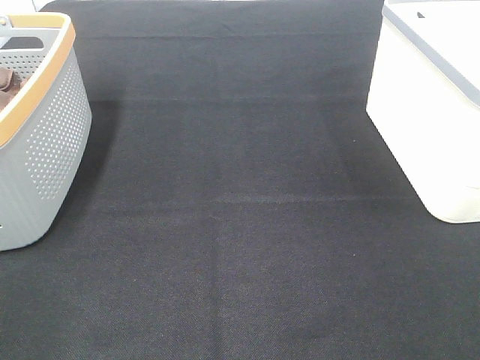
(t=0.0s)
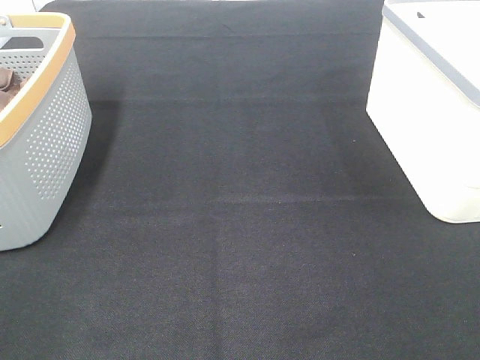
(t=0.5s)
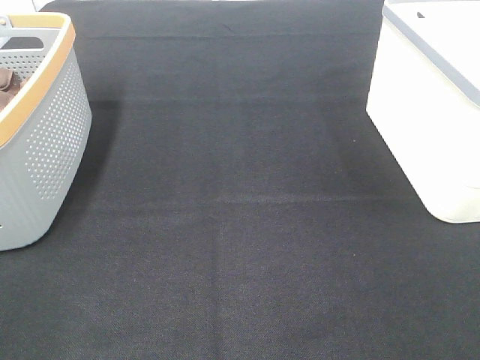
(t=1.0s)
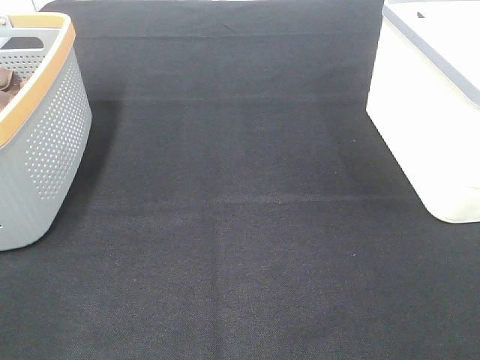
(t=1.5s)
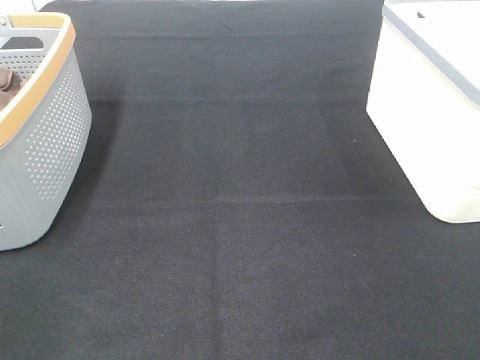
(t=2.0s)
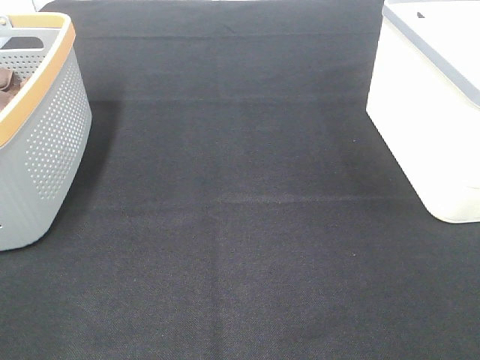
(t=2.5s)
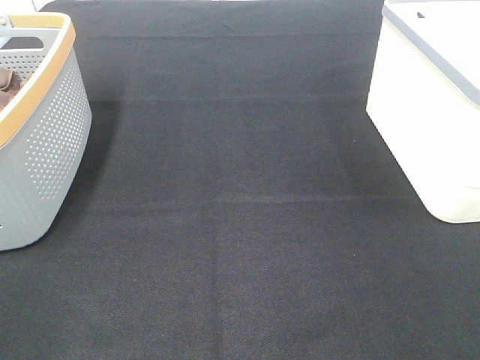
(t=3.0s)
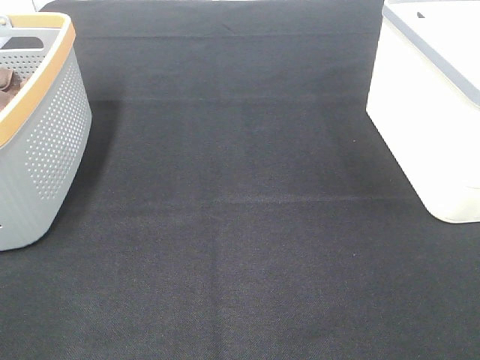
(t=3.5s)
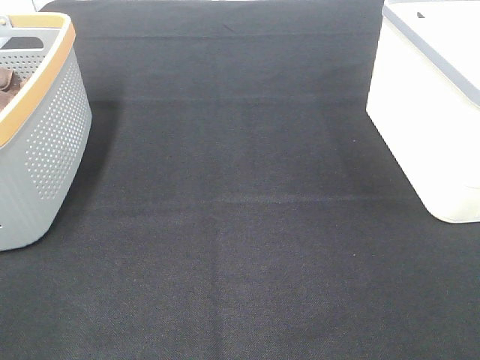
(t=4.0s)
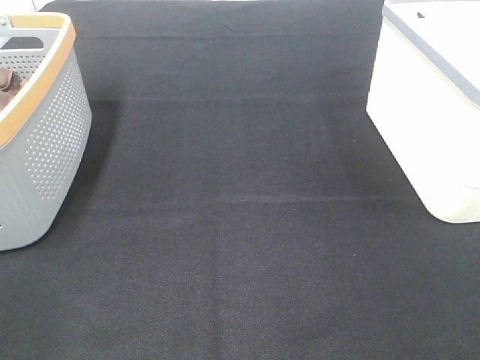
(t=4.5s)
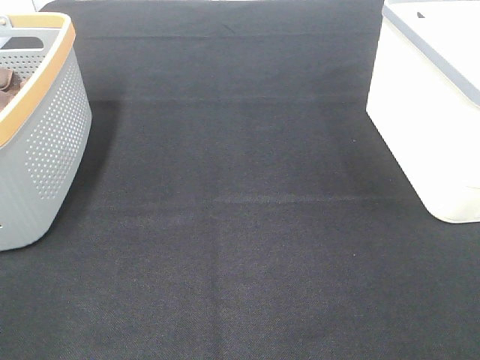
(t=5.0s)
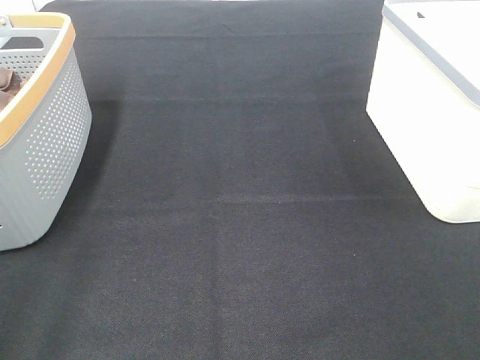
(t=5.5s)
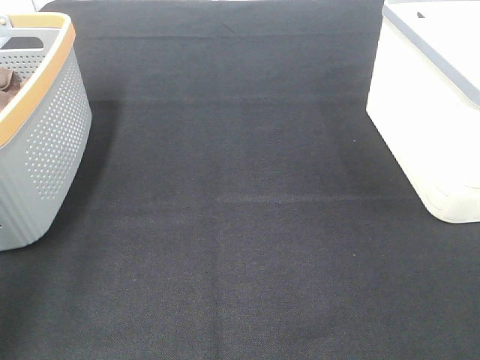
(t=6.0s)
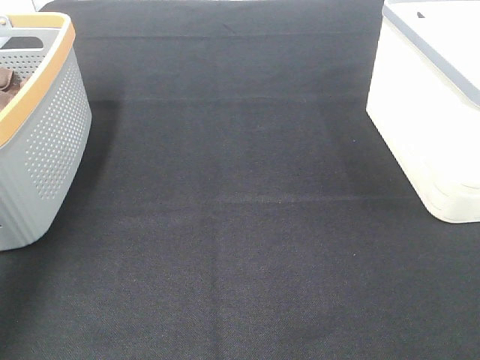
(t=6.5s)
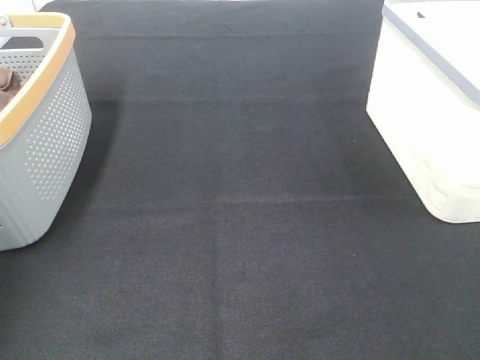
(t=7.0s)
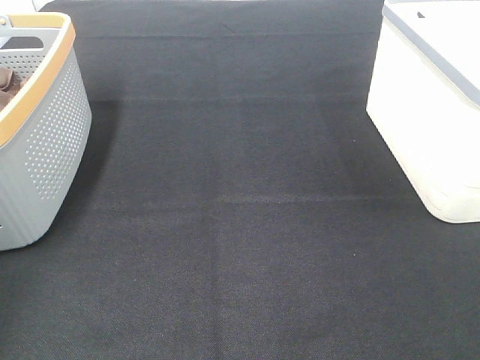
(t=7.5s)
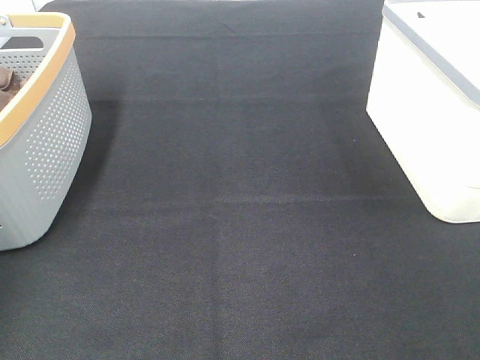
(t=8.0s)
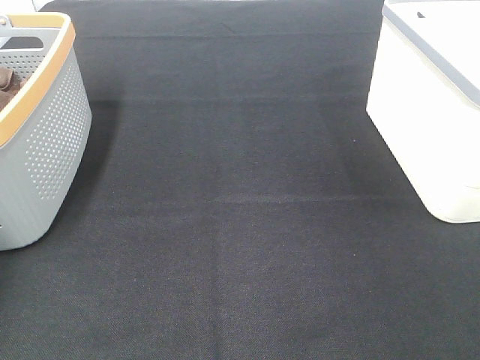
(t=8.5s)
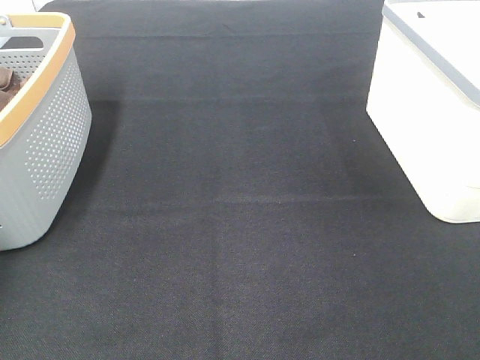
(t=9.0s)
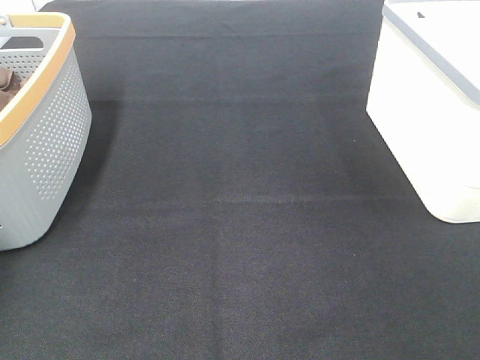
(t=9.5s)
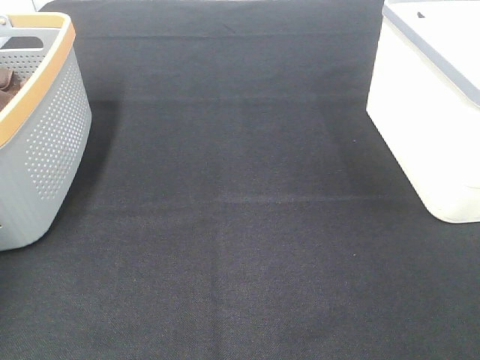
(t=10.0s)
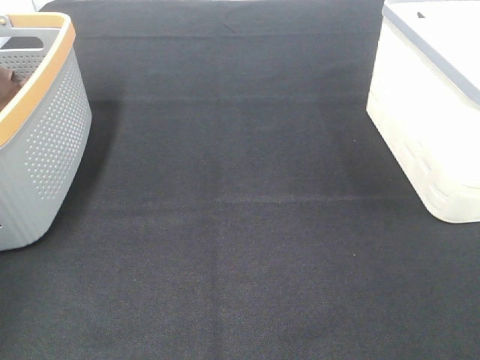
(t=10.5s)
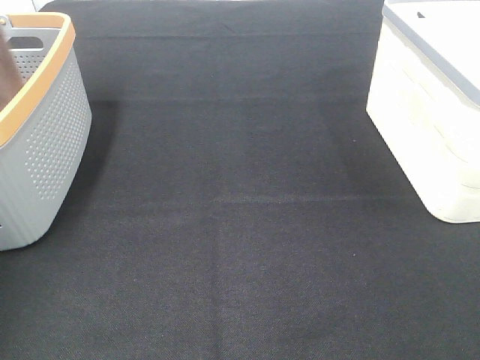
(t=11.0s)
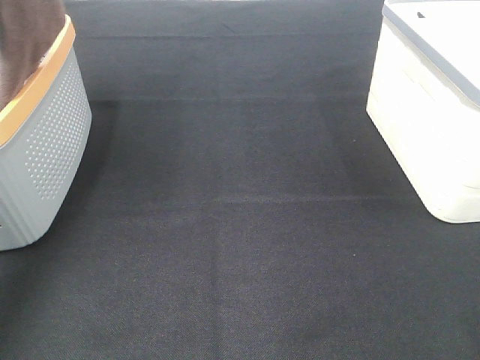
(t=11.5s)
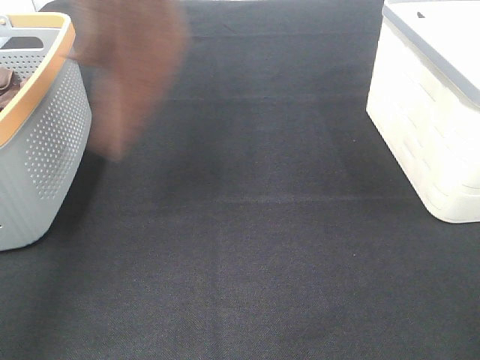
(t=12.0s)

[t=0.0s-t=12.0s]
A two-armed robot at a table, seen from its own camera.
Task of the whole recording: Remove the towel and place it.
t=0.0s to t=4.0s: Neither gripper changes place.
t=4.0s to t=6.0s: The left gripper is displaced forward and upward by approximately 20 cm.
t=6.0s to t=8.0s: The left gripper heads forward and to the left, covering some 30 cm.
t=10.0s to t=12.0s: The left gripper moves to the right, upward and backward, roughly 35 cm. Meanwhile the right gripper moves upward, forward and to the left, about 10 cm.

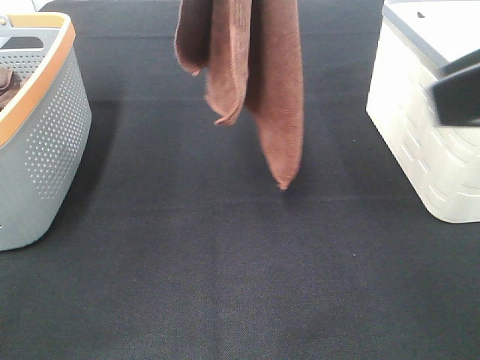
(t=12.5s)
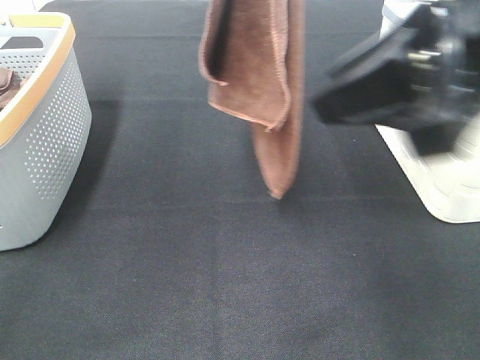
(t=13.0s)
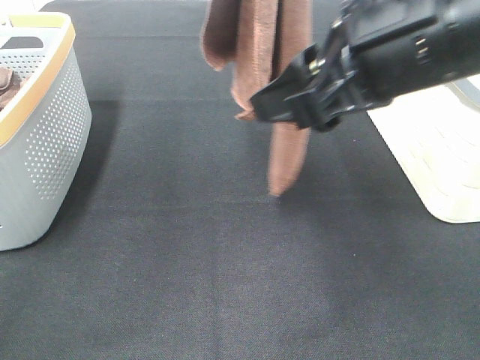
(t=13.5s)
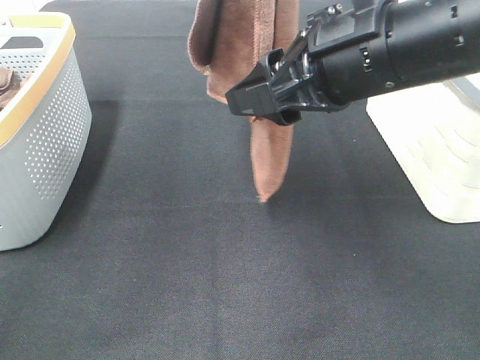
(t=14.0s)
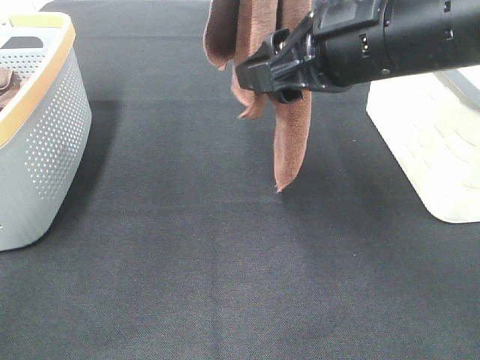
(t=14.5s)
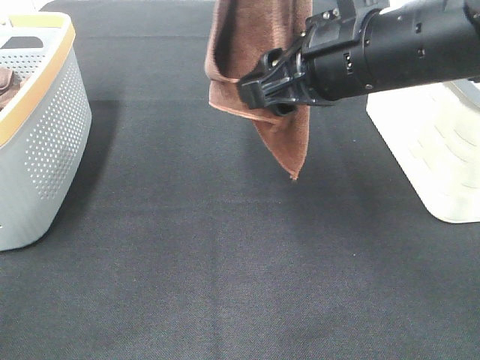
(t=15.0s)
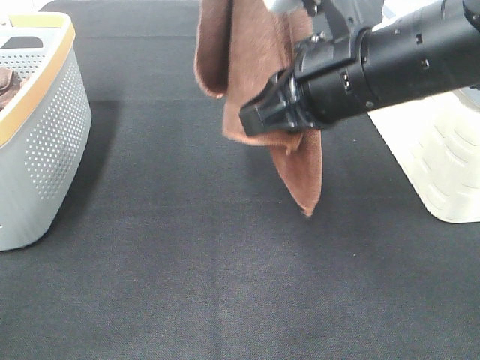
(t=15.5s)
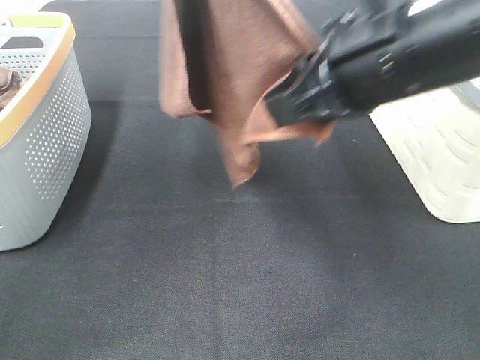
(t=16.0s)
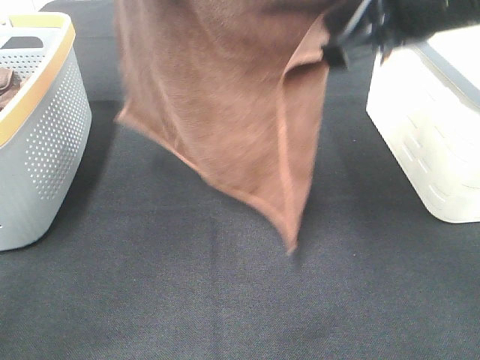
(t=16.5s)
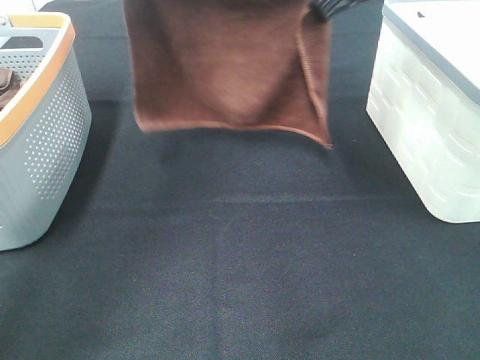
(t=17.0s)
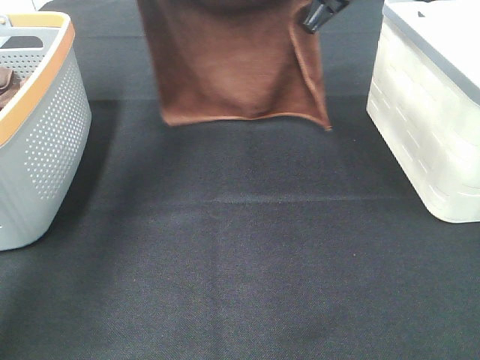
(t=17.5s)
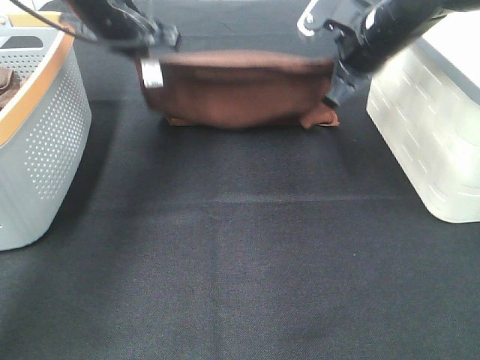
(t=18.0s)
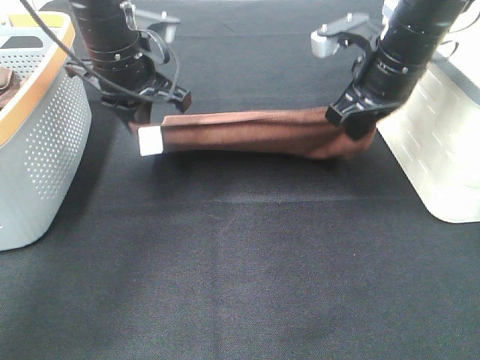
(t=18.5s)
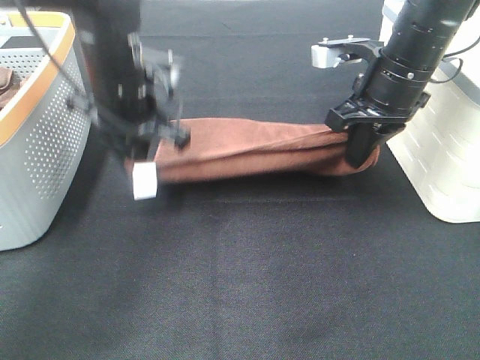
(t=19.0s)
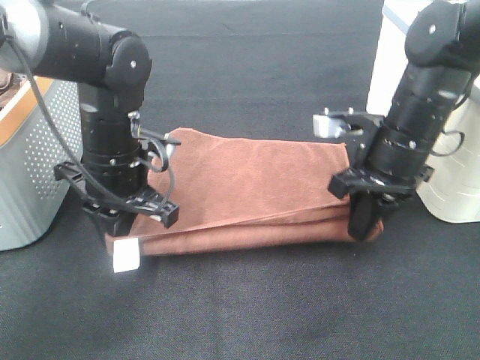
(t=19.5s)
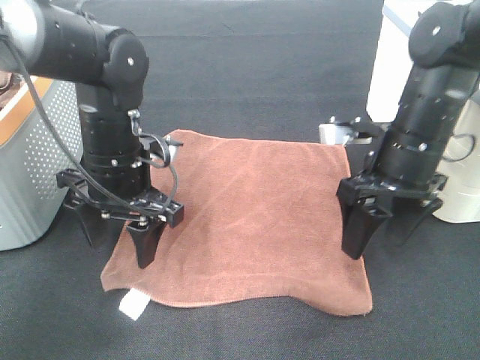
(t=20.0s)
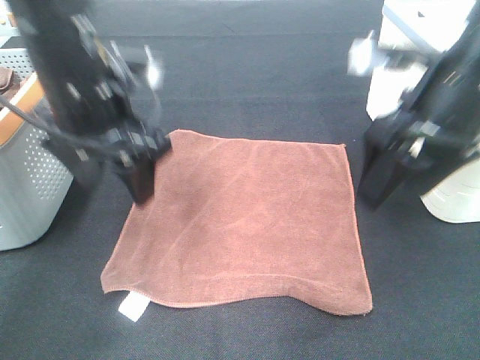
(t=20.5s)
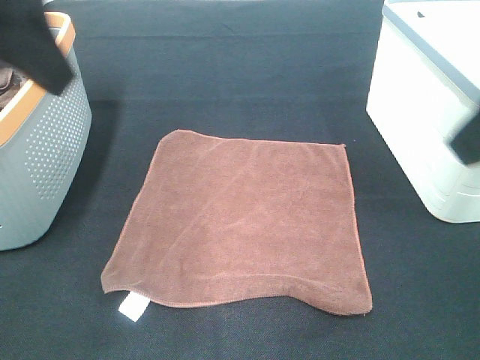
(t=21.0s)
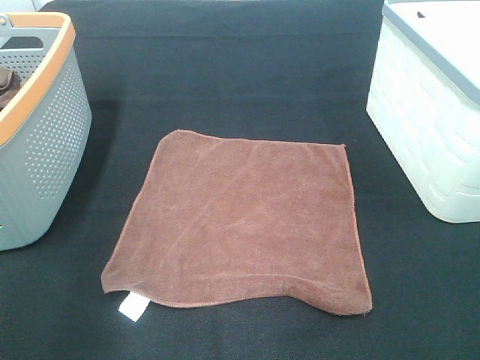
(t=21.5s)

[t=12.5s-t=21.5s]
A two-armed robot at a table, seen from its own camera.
Task of the whole recording: Remove the towel and place it.
Step, t=14.0s to t=15.5s: Left hand: spread the brown towel flat on the table.
Step, t=14.0s to t=15.5s: Right hand: spread the brown towel flat on the table.
t=12.5s to t=14.5s: The right gripper shifts roughly 15 cm forward, to the left and downward.
t=14.5s to t=17.0s: The right gripper travels forward by approximately 10 cm, and closes up; the left gripper heads forward, downward and to the left, covering about 15 cm.
t=17.0s to t=19.5s: The left gripper shifts roughly 25 cm downward and backward, while the right gripper moves downward, about 15 cm.
t=19.5s to t=21.5s: The right gripper goes approximately 30 cm backward and upward, and opens, while the left gripper heads backward, upward and to the left, covering some 30 cm, and opens its fingers.

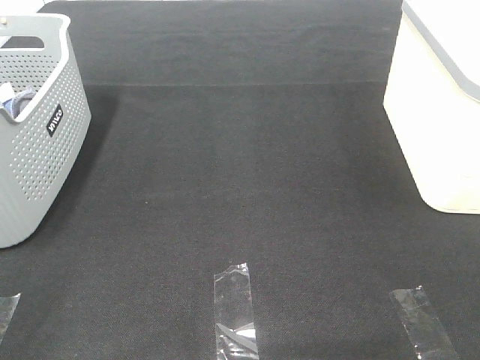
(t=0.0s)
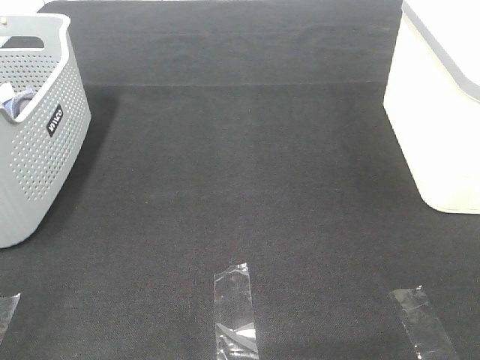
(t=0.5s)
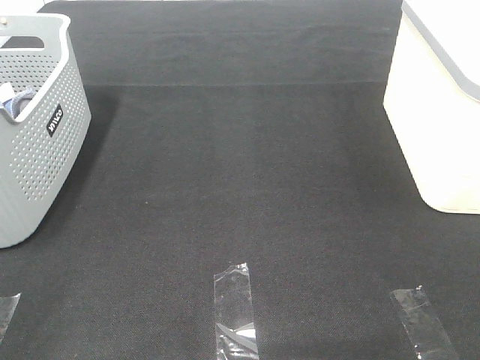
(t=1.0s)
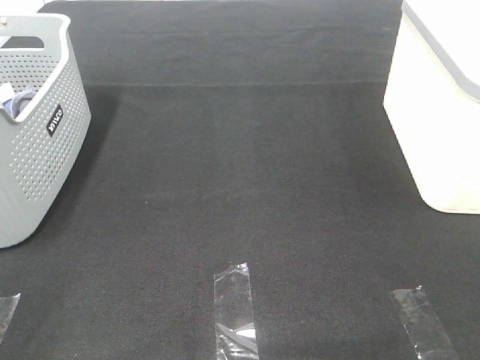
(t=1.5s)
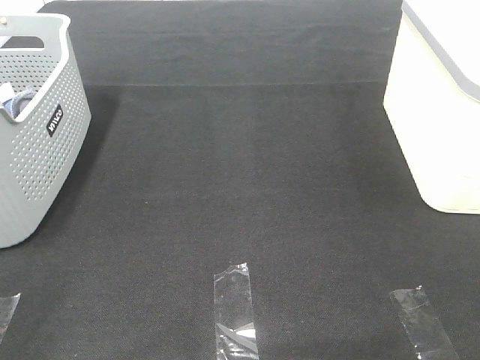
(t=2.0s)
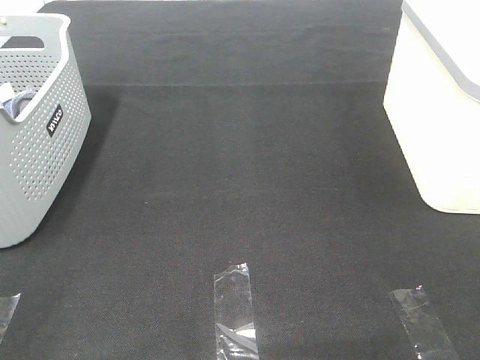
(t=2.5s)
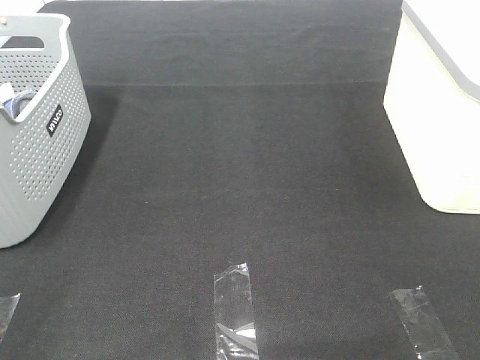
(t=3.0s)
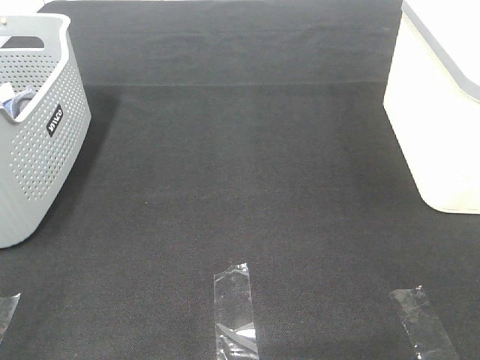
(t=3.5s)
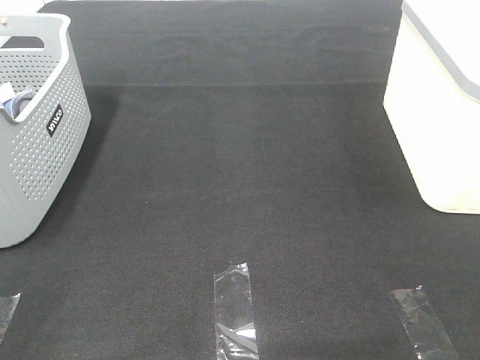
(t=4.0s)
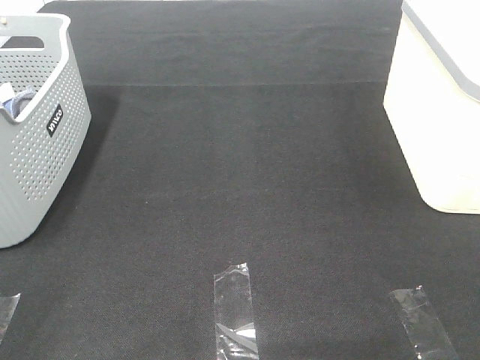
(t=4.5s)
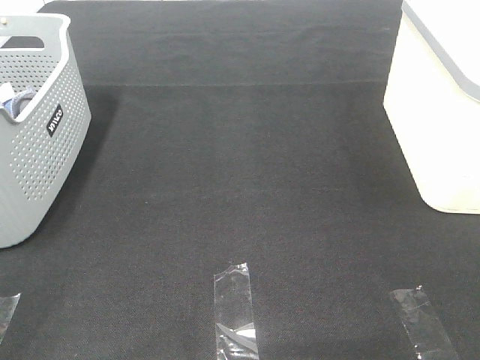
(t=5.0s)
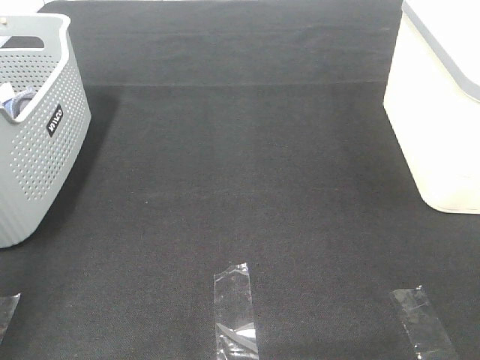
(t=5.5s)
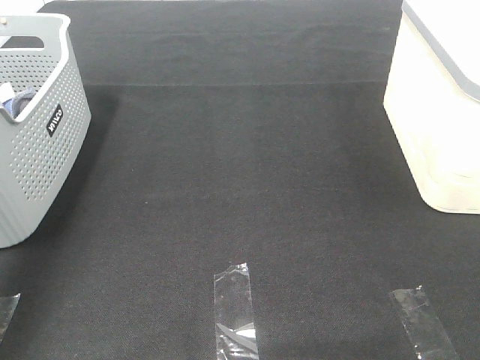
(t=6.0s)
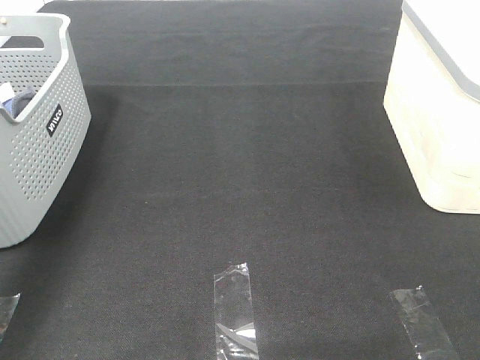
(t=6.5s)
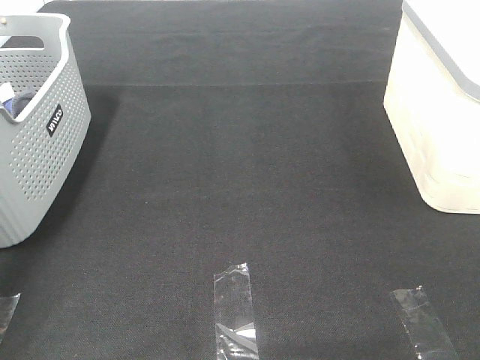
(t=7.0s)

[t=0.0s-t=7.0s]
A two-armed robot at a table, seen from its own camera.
Task of the whole recording: Remove the towel and place it.
t=0.0s to t=3.5s: The two grippers keep their place.
t=5.0s to t=7.0s: The left gripper heads forward, covering about 40 cm.
